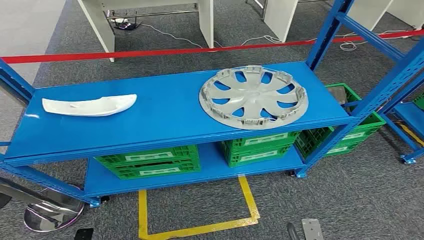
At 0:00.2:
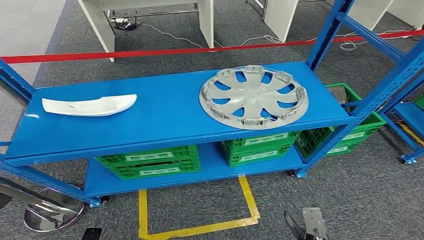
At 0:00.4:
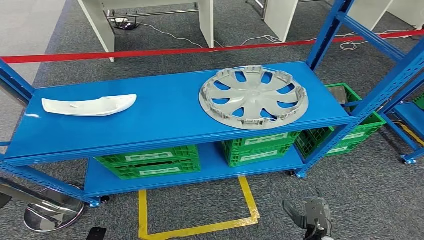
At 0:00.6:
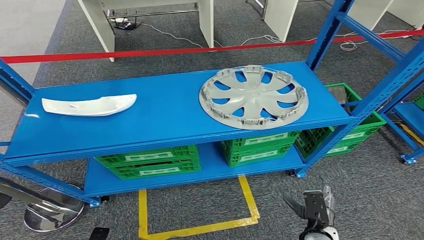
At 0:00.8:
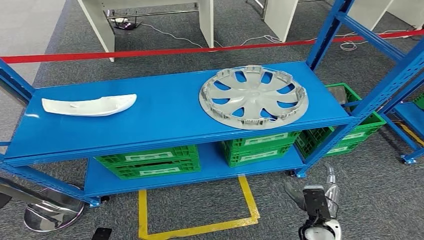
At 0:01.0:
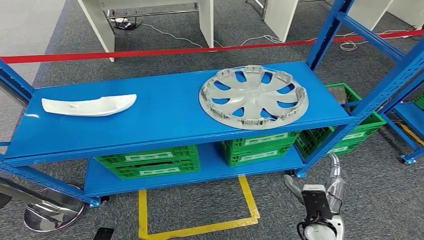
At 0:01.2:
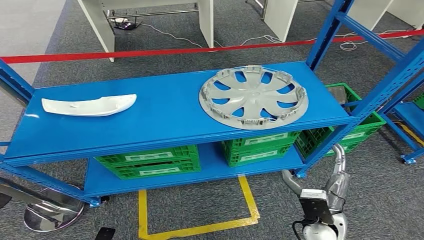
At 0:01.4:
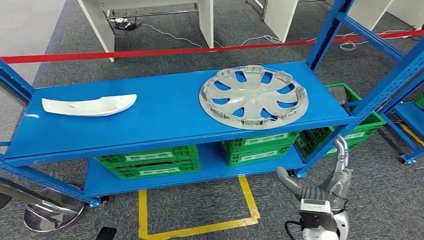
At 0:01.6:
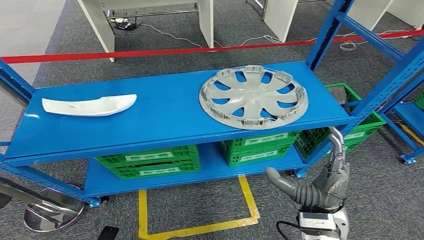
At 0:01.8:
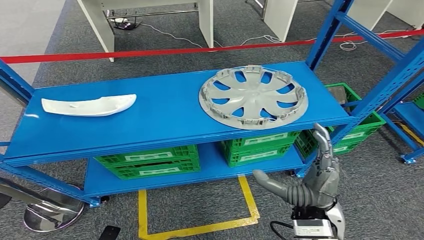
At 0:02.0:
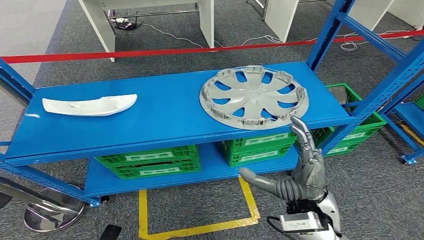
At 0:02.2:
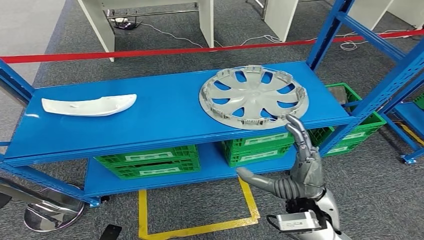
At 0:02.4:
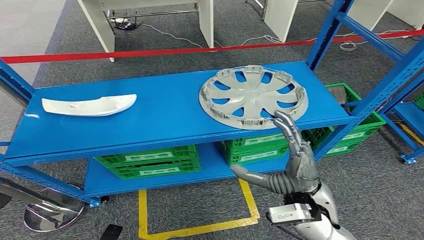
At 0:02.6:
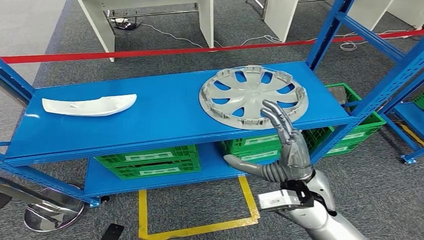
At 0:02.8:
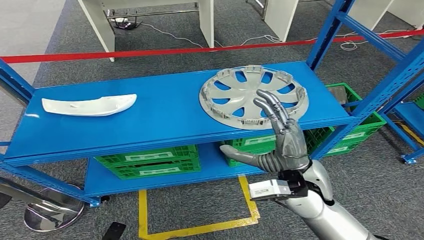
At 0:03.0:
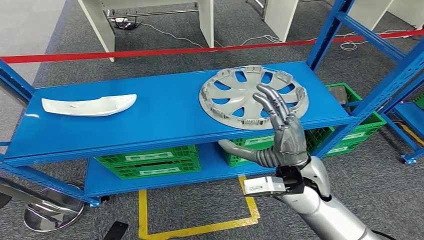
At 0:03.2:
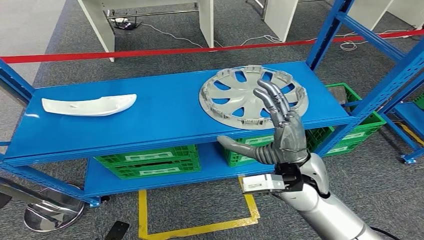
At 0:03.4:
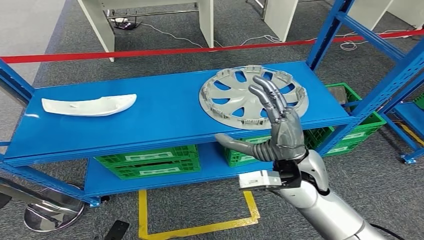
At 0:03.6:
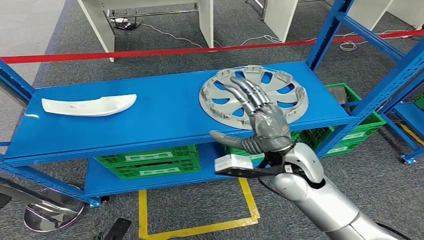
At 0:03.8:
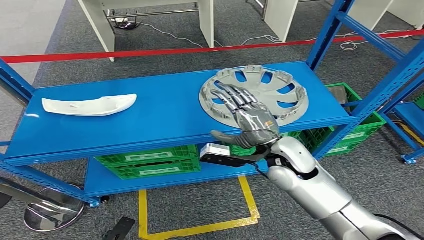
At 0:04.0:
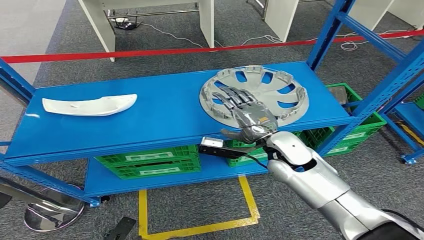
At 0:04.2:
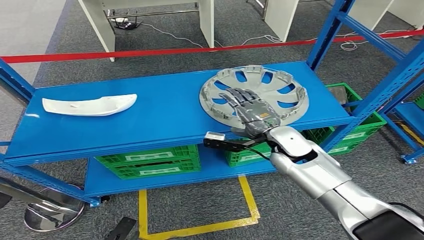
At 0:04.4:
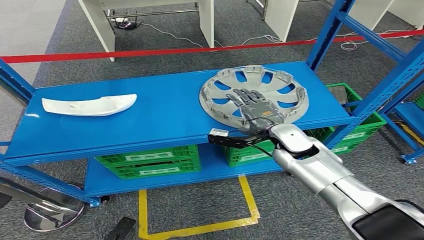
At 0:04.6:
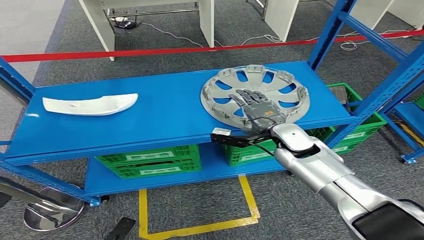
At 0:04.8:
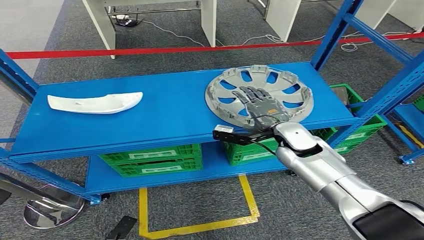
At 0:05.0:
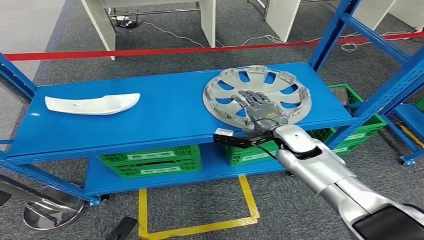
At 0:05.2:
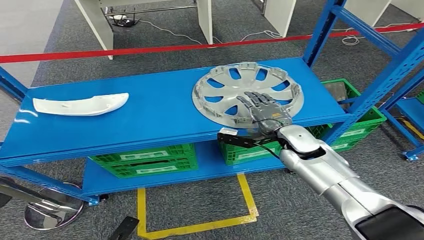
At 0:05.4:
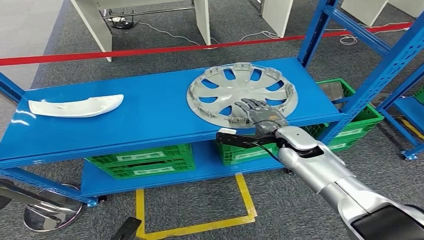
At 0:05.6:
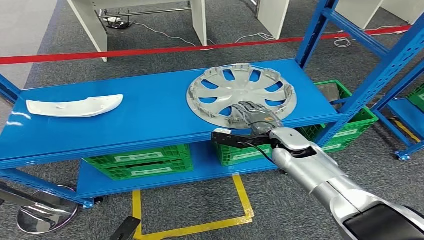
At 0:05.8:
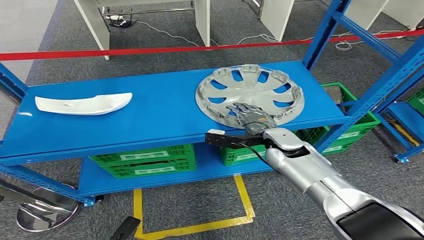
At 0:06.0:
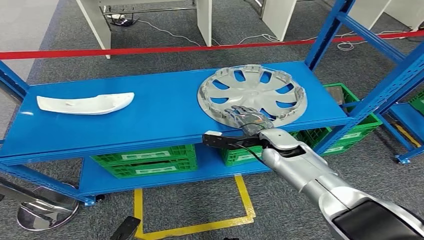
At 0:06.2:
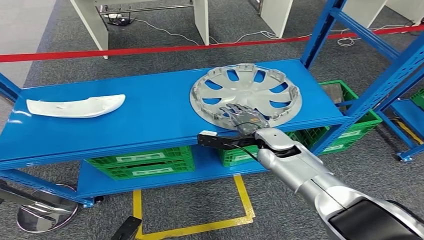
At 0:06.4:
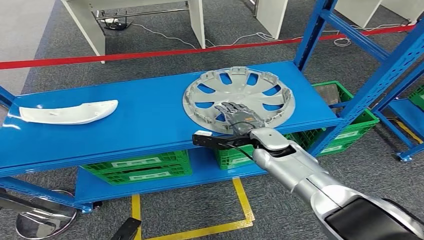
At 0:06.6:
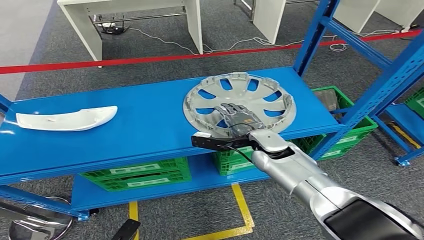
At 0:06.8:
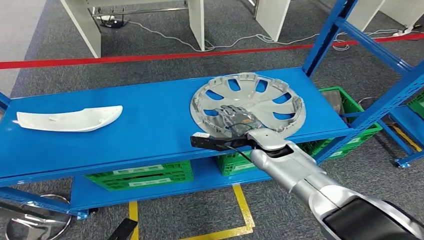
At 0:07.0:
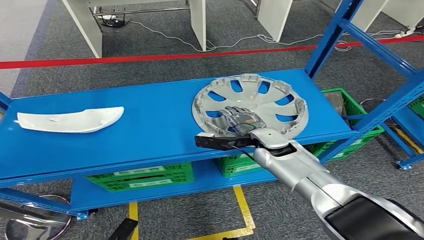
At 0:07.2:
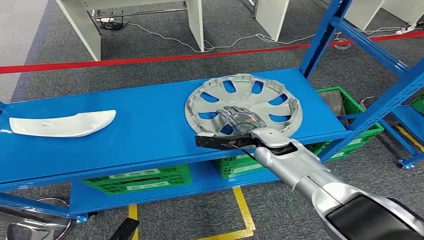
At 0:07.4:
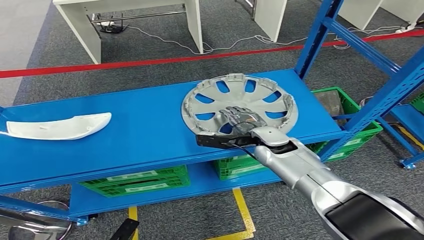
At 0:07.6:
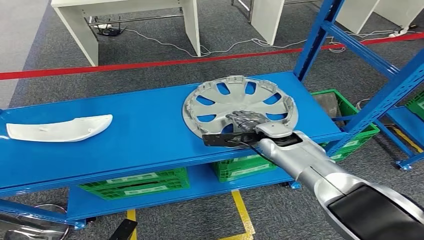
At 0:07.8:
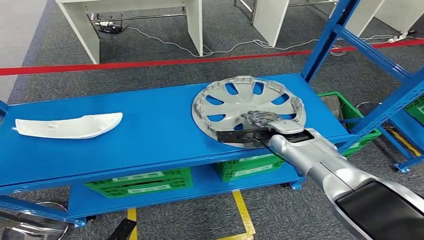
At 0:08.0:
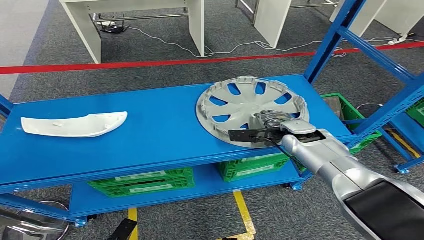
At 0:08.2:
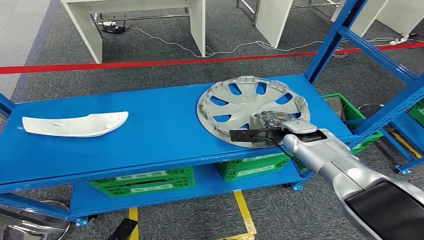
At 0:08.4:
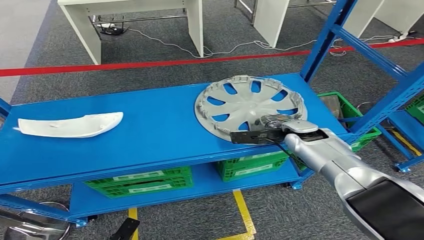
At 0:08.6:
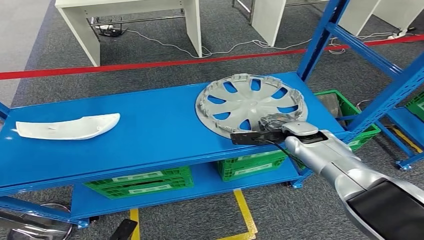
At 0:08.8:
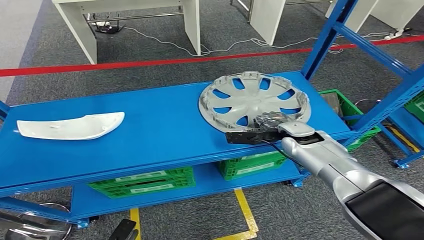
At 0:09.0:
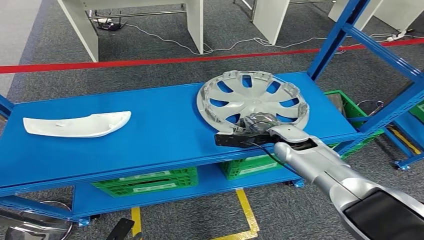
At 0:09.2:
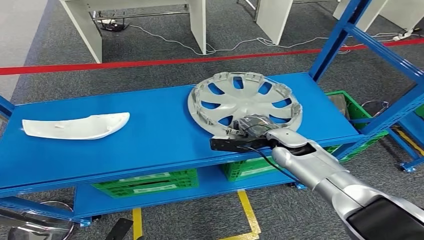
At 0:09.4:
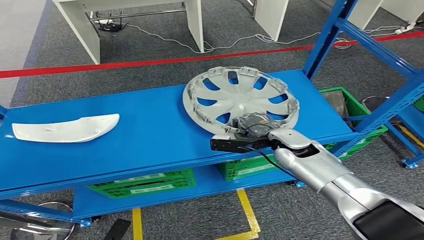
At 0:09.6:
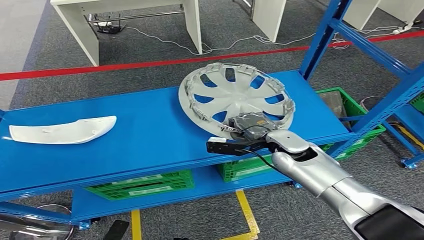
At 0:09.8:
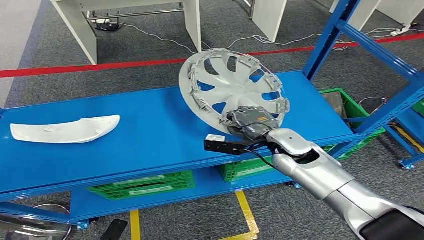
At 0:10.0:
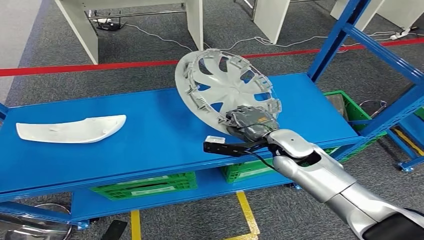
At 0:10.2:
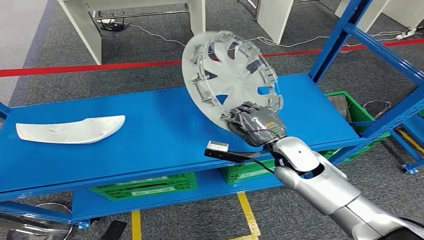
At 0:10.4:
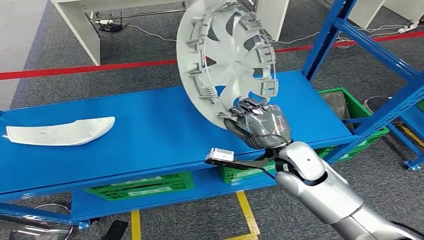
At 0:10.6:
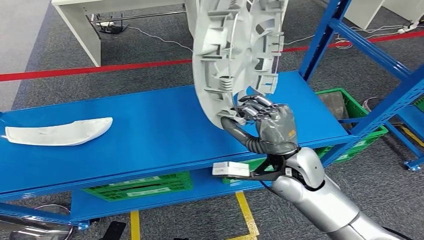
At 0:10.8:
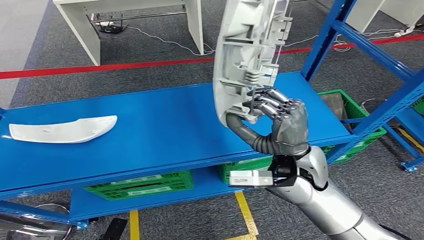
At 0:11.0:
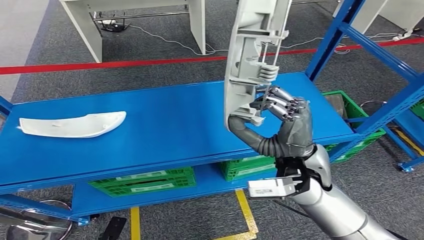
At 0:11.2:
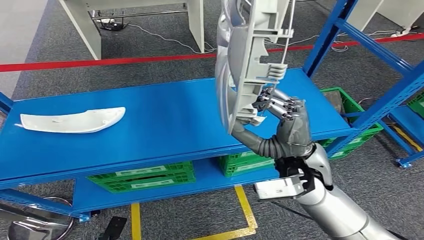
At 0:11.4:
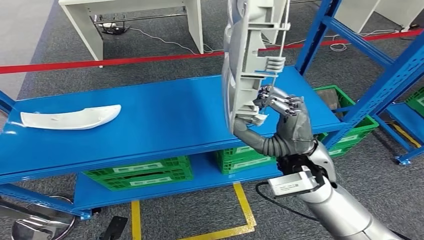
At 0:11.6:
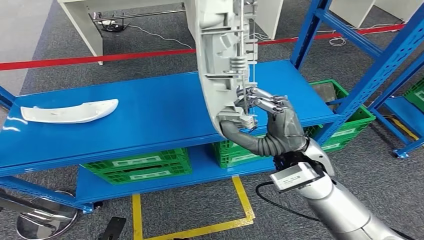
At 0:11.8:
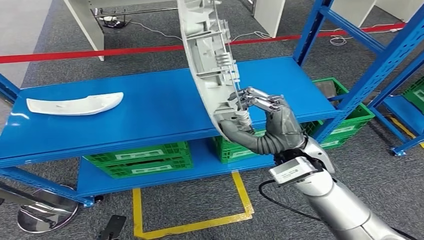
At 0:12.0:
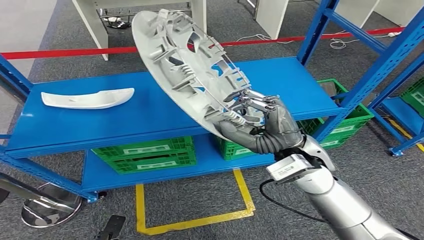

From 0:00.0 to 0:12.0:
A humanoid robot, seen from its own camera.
Step, from 0:00.0 to 0:10.4: Pick up the small component from the shelf.
From 0:01.6 to 0:03.0: The right hand is displaced forward and upward by some 10 cm.
From 0:03.0 to 0:04.4: The right hand shifts roughly 10 cm forward.

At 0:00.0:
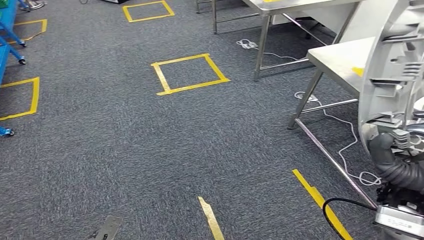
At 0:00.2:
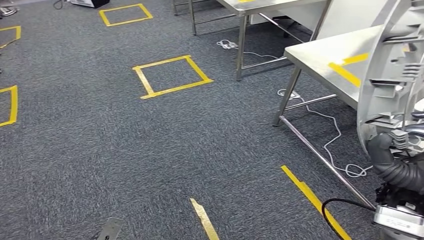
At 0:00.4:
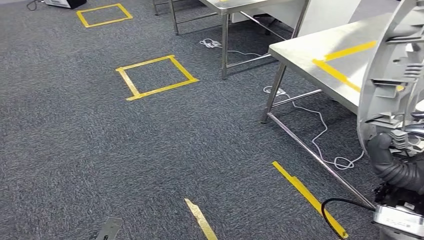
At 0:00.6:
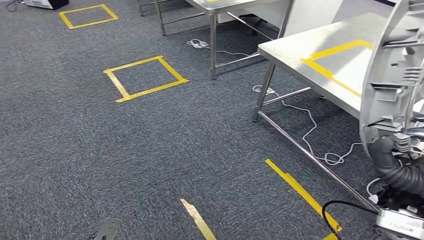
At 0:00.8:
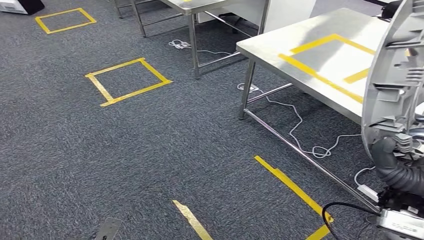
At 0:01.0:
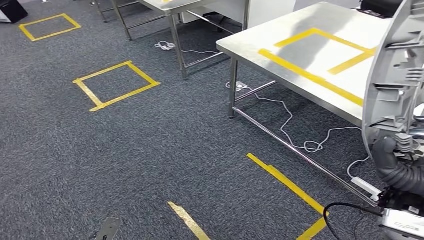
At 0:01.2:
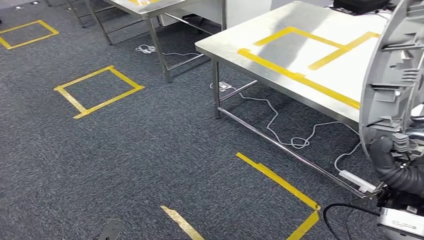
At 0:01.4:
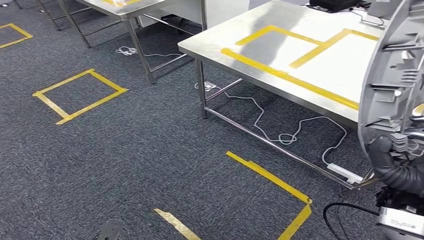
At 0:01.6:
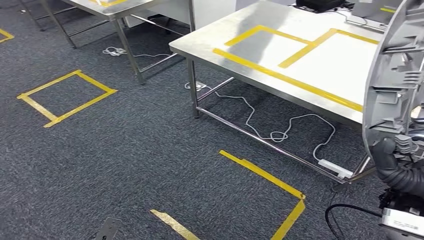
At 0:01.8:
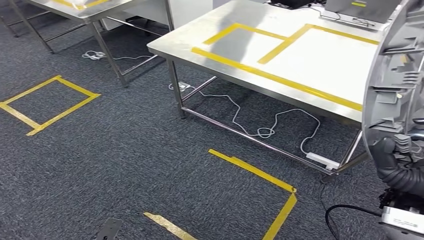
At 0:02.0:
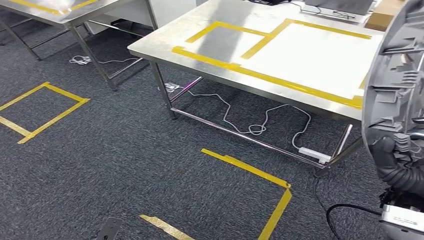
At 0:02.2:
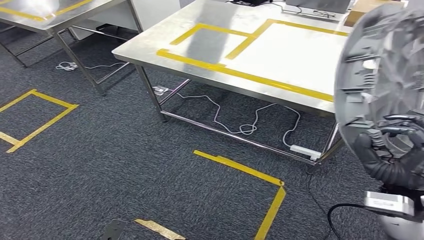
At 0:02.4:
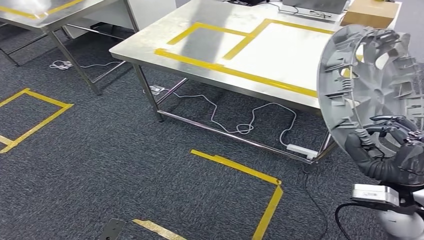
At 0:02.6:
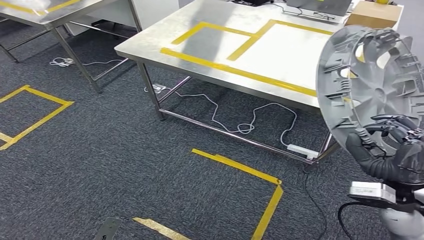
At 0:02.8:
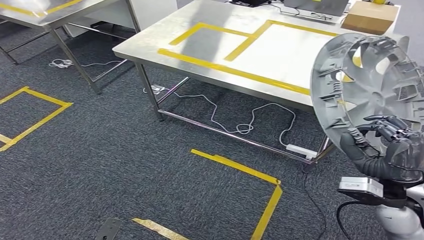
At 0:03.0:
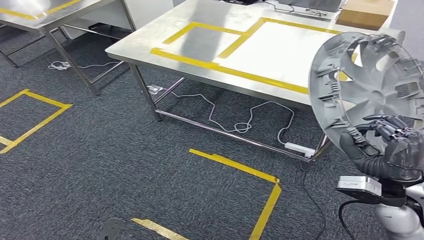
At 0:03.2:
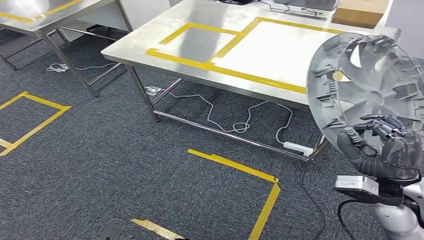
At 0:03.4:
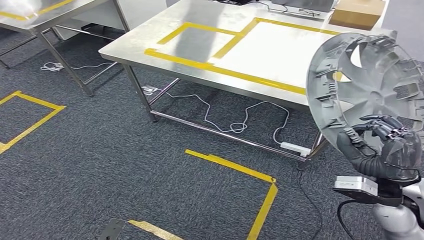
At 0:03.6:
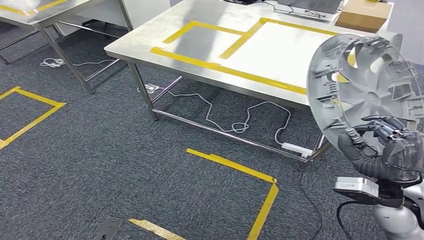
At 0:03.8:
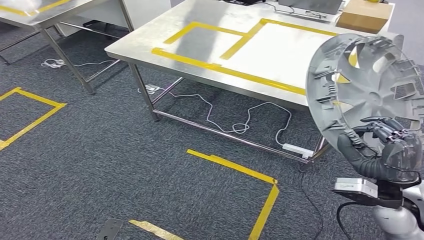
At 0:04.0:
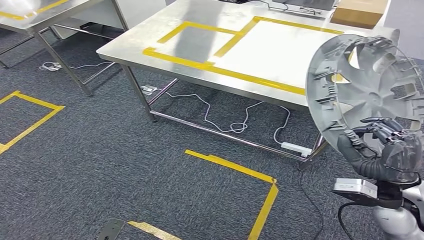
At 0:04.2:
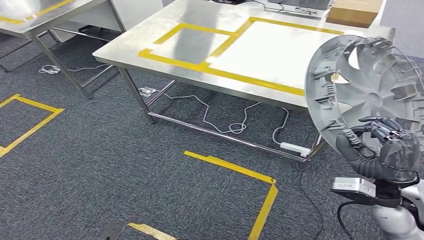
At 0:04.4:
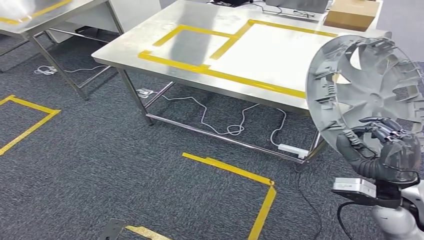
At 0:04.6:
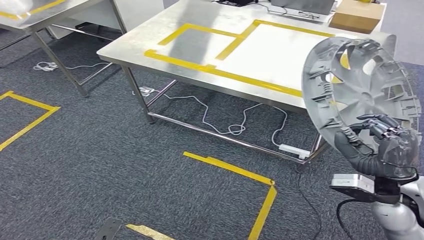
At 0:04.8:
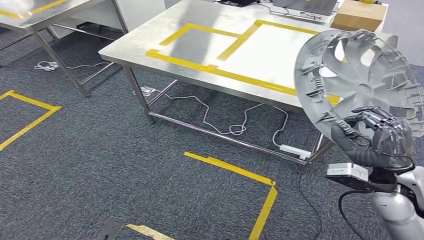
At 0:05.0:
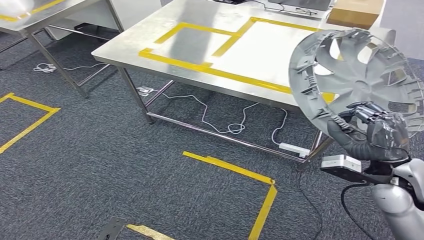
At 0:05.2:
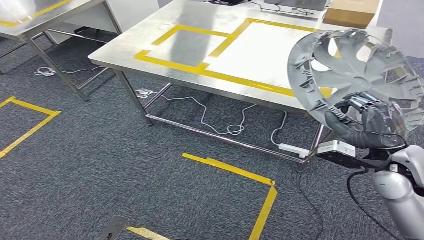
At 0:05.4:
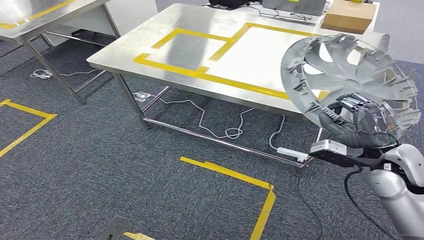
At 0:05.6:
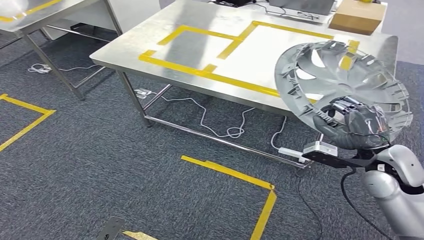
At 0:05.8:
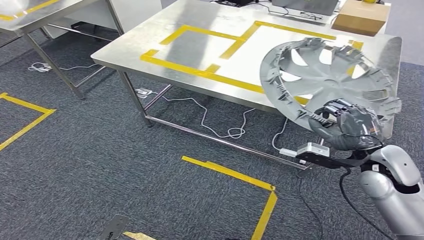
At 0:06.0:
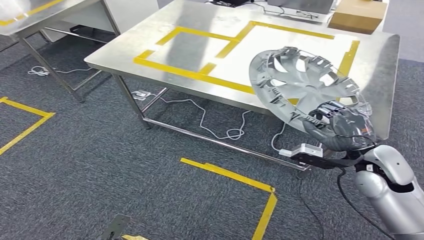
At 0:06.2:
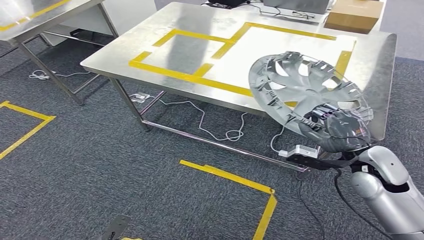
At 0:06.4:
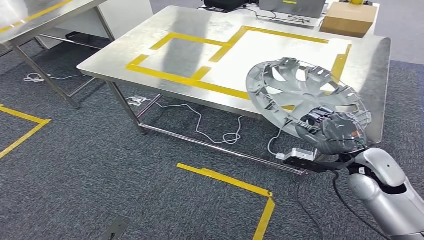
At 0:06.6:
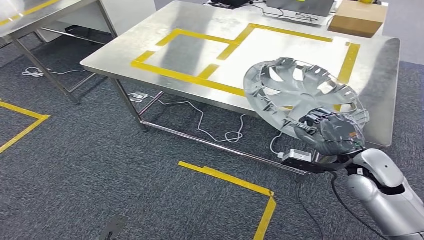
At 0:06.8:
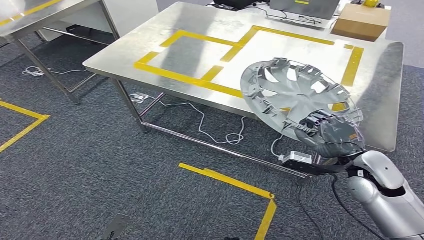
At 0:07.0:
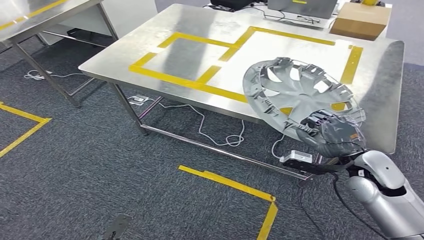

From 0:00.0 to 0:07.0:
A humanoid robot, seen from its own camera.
Step, from 0:00.0 to 0:06.6: Move the small component to the workbench.
